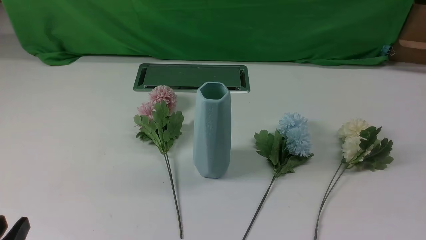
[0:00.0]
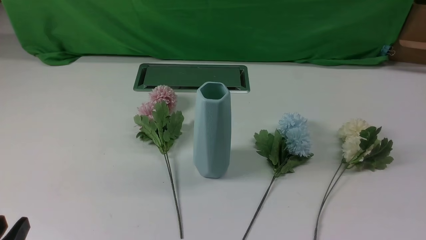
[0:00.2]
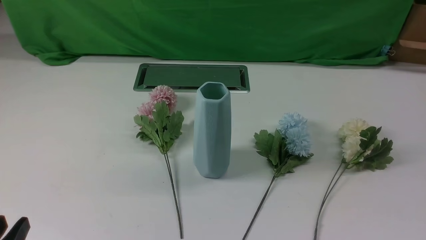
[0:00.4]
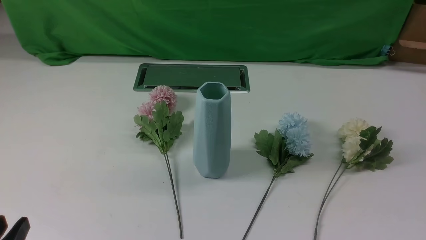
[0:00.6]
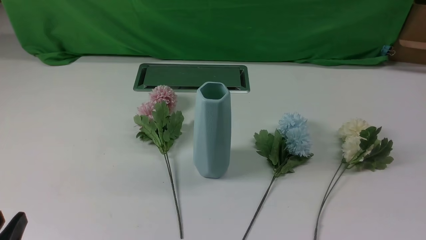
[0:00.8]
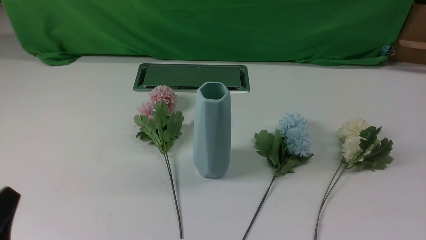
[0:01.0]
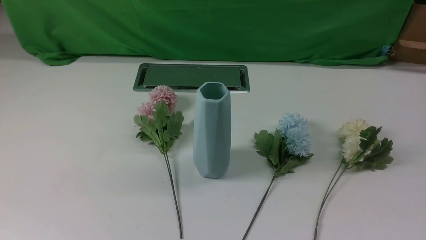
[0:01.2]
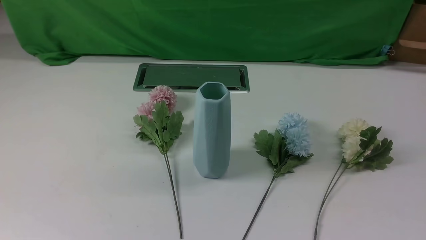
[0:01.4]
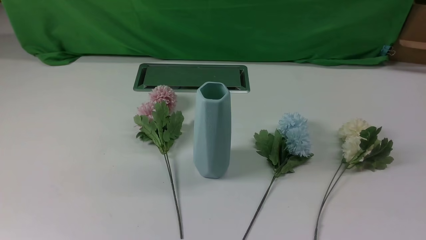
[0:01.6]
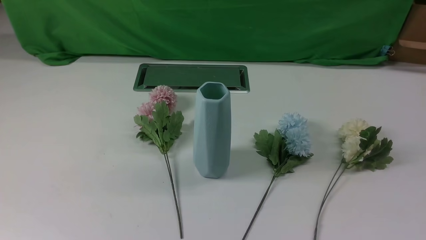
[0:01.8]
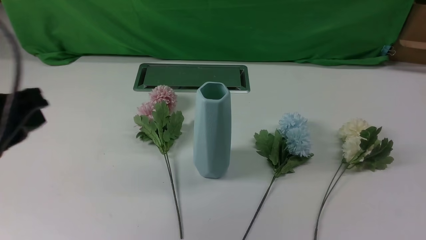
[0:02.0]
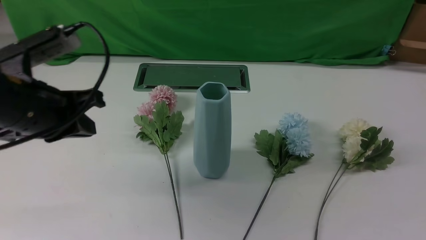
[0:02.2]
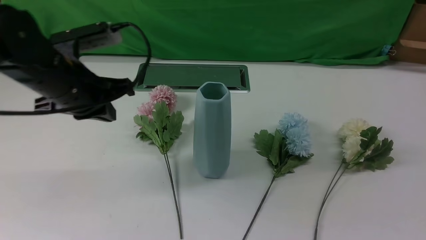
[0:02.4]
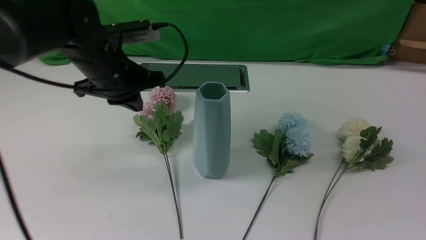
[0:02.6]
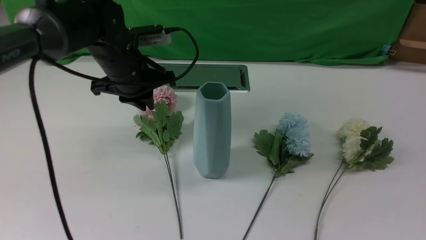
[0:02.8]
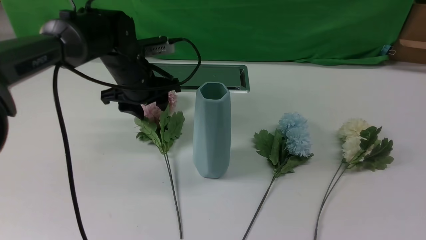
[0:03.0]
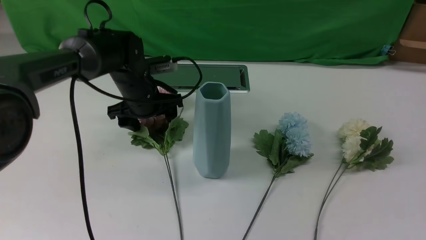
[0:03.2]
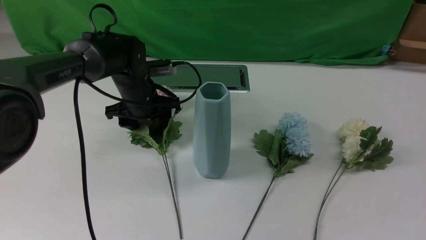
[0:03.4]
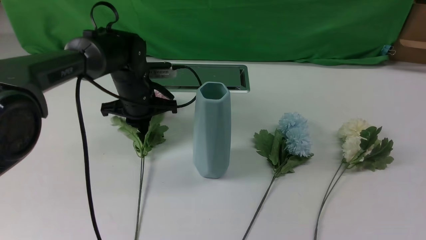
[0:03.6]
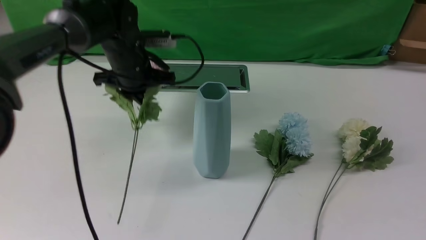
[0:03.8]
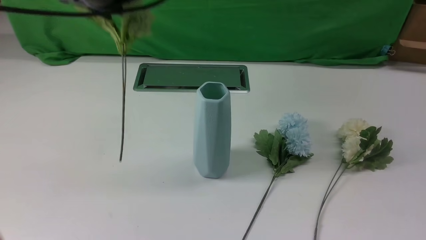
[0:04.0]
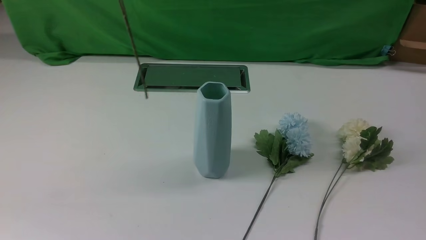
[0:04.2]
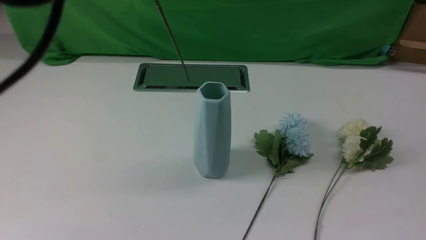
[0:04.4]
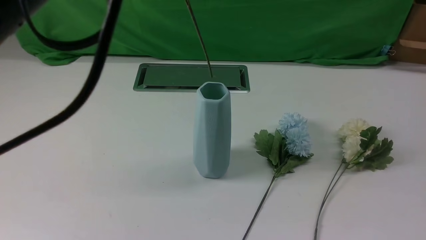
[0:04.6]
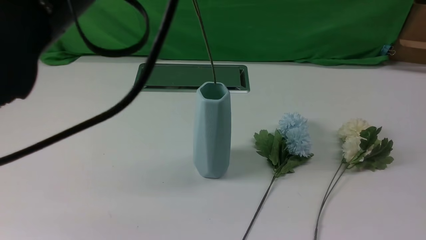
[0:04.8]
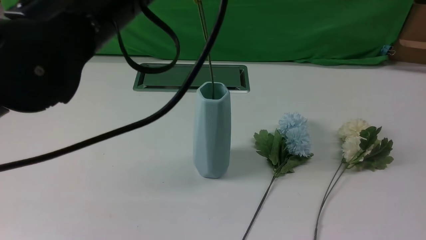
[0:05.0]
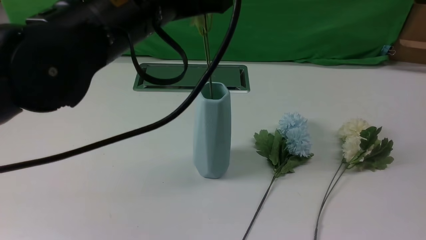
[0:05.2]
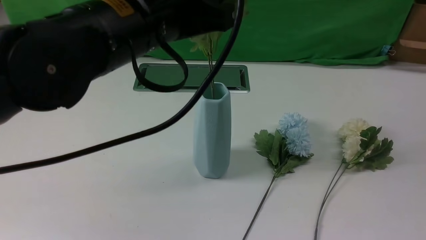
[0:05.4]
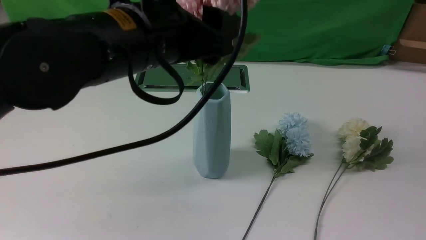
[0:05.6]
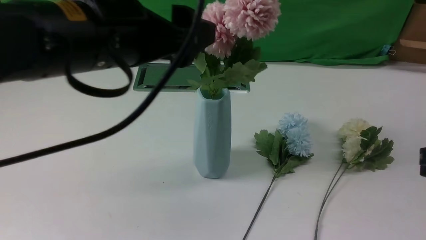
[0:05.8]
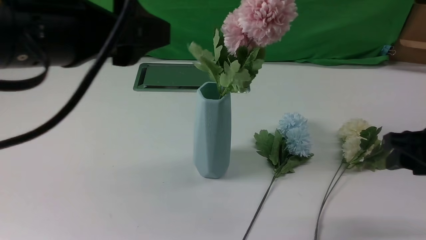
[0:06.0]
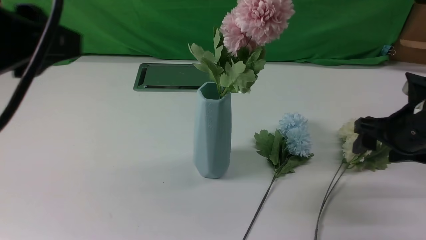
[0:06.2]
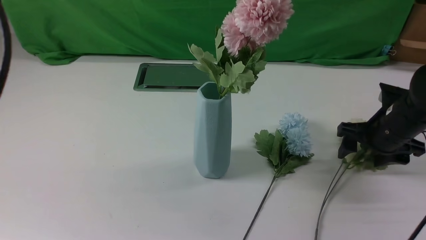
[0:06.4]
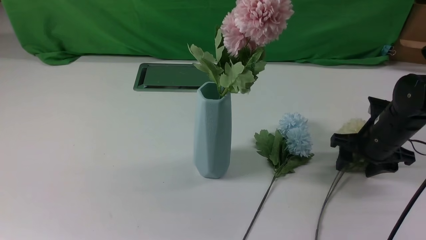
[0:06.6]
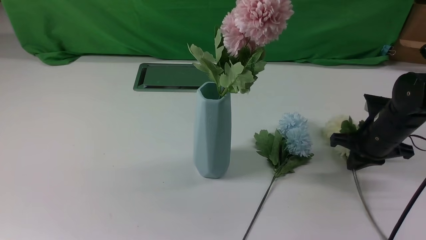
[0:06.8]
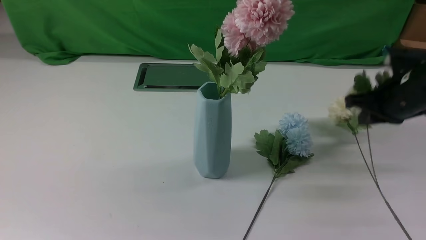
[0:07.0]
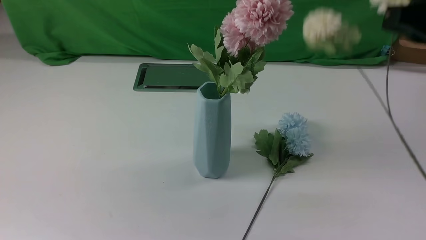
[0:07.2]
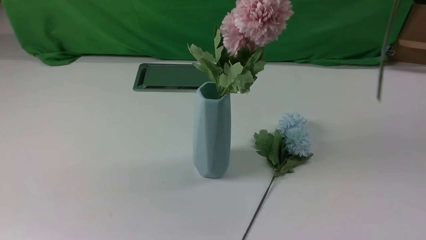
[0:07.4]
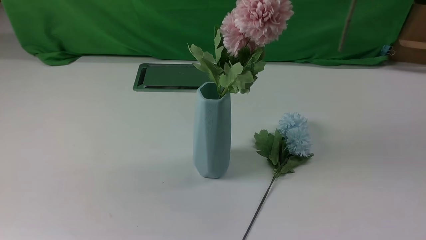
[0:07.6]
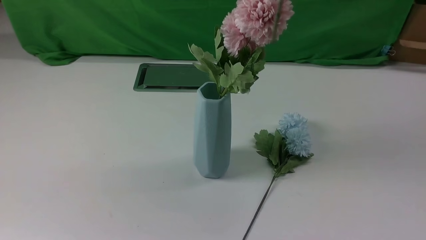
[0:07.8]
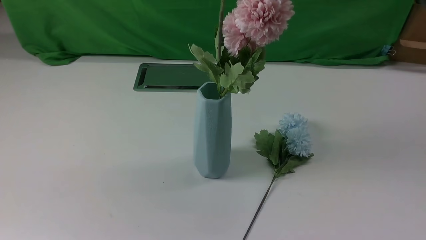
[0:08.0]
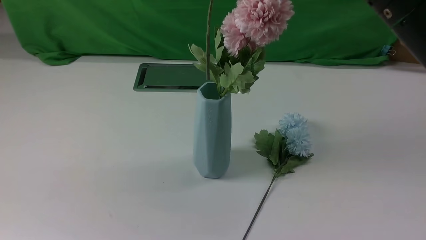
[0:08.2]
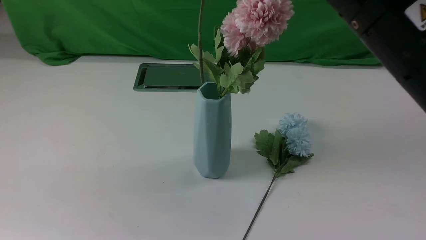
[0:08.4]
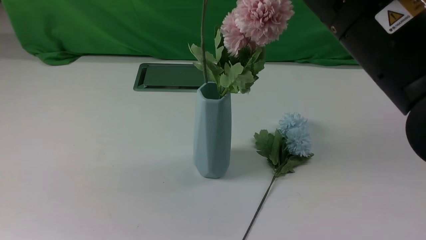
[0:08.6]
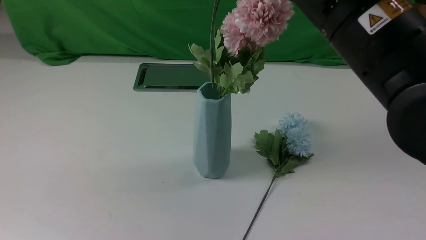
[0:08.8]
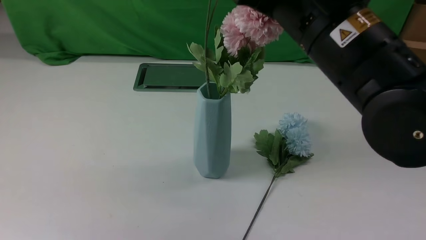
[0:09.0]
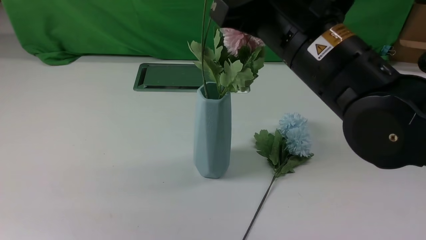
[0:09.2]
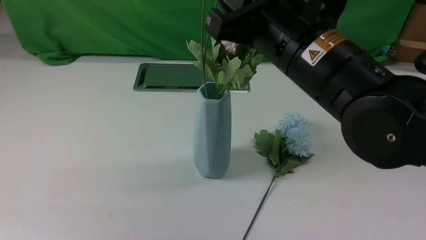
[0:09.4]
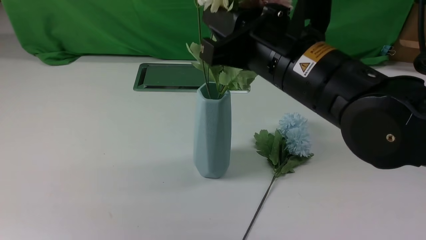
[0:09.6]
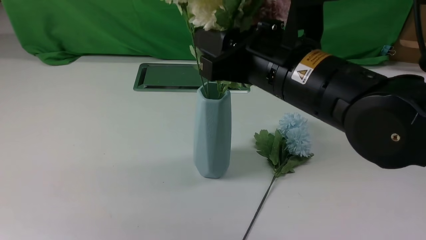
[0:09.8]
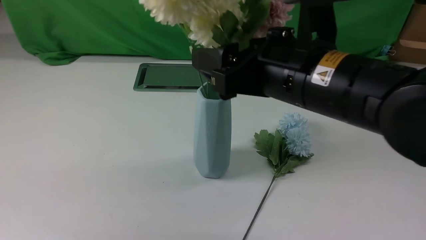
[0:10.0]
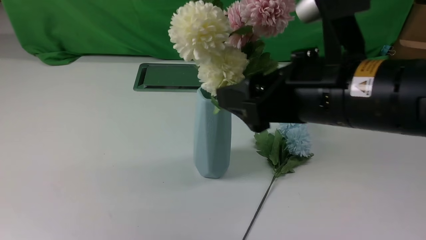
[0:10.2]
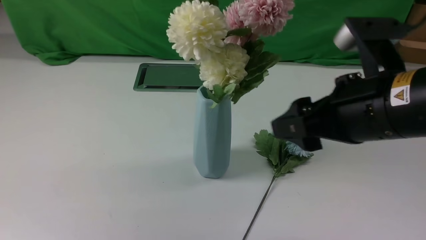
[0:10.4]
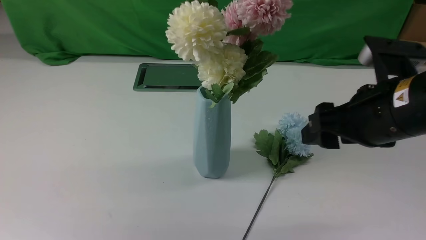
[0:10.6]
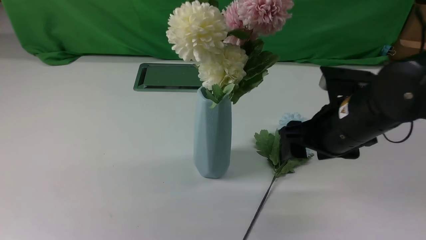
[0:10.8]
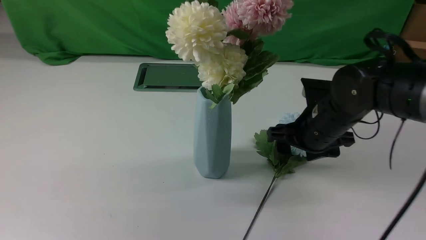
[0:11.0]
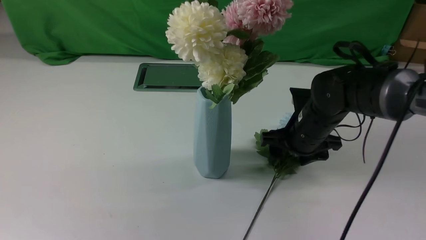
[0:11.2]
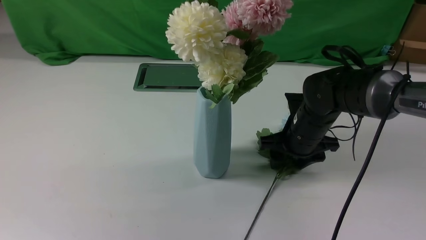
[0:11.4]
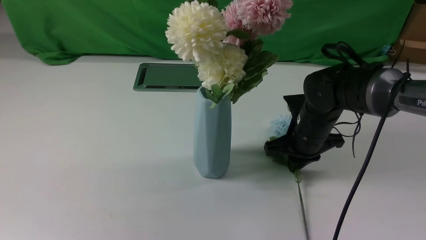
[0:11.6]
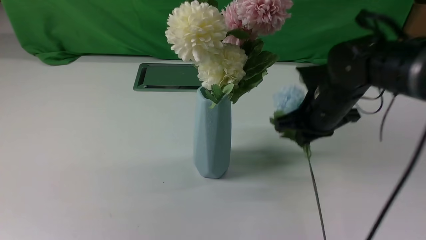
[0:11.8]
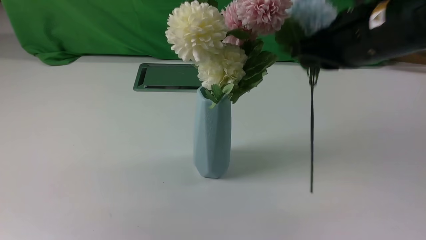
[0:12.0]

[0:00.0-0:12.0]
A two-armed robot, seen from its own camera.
Task of the whole recording: insert the flowers into the vase on the white table.
Step, 0:00.0 to 0:03.6: use the left arm to grab a bunch of fresh flowers.
Step, 0:03.8 to 0:05.6: use the left arm to insert the flowers into the vase.
Step, 0:06.0 to 0:06.8: use the right arm to grab a bunch of fresh flowers.
Step, 0:07.0 to 0:10.2: use the right arm to insert the flowers into the vase.
Step, 0:10.4 to 0:11.6: use the right arm to grab a bunch of fresh flowers.
0:01.6 to 0:03.0: The left gripper goes some 40 cm forward, and opens. Meanwhile the right gripper shifts some 15 cm upward and forward.
0:03.0 to 0:04.4: The left gripper is displaced upward and backward by some 35 cm, and closes its fingers.
0:04.4 to 0:06.0: The left gripper is displaced downward by about 5 cm, and opens, while the right gripper is displaced forward and downward by about 15 cm, and opens its fingers.
0:06.0 to 0:07.6: The left gripper is displaced backward and to the left by approximately 15 cm, and closes up, while the right gripper moves upward and backward, roughly 25 cm, and closes its fingers.
0:07.6 to 0:09.0: The right gripper shifts approximately 20 cm downward, to the left and forward.
0:09.0 to 0:10.4: The right gripper shifts some 10 cm to the right and downward, and opens its fingers.
0:10.4 to 0:12.0: The right gripper reaches roughly 20 cm downward, then returns, and closes.

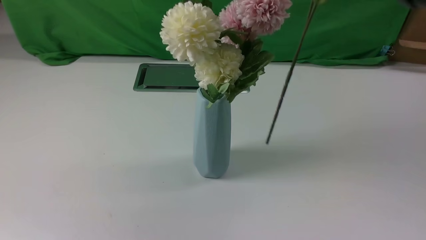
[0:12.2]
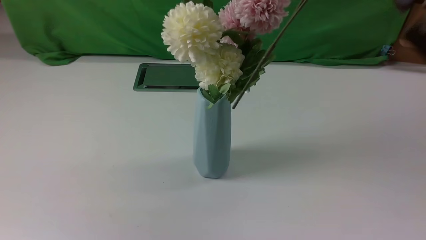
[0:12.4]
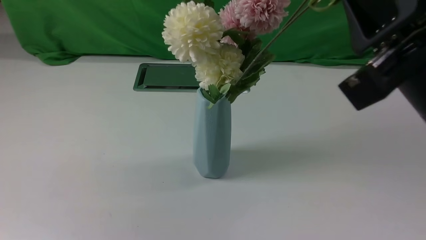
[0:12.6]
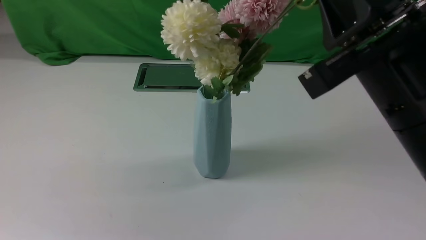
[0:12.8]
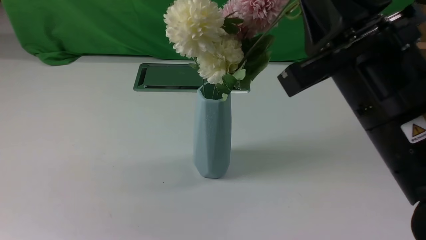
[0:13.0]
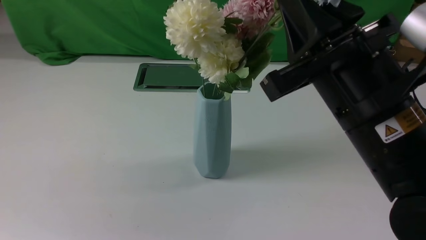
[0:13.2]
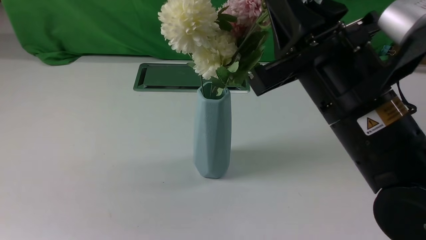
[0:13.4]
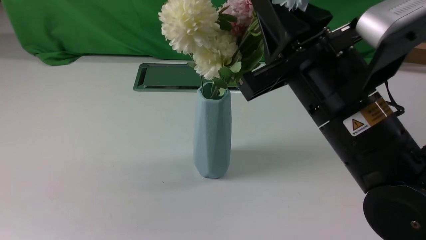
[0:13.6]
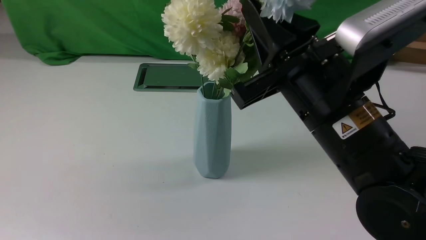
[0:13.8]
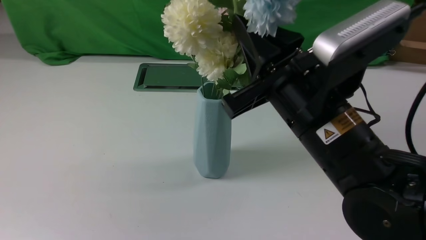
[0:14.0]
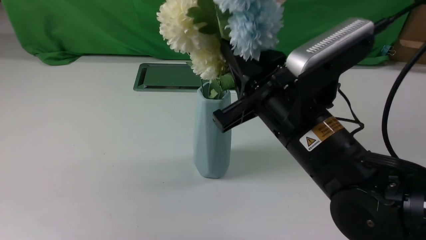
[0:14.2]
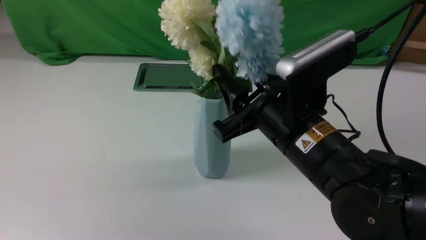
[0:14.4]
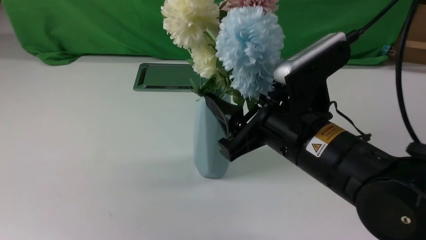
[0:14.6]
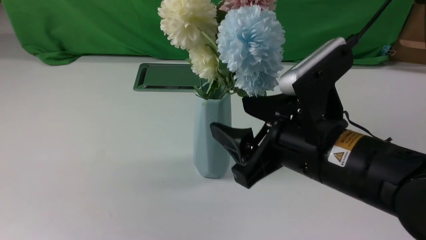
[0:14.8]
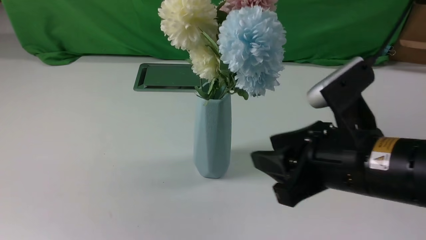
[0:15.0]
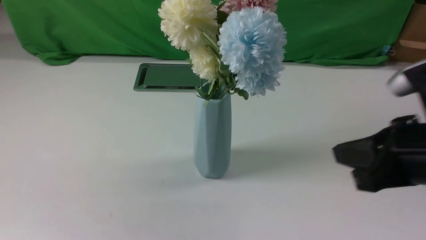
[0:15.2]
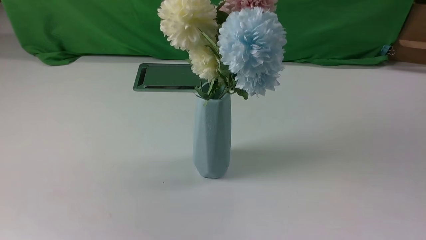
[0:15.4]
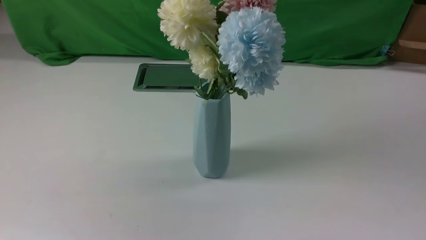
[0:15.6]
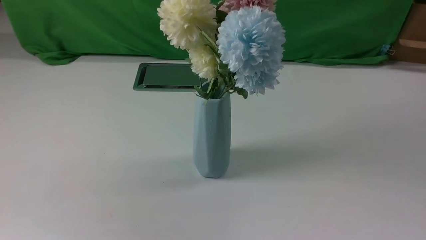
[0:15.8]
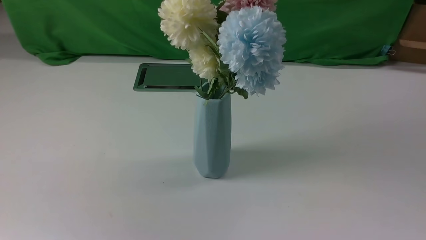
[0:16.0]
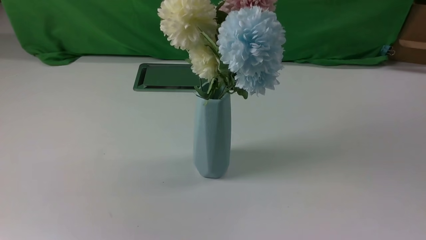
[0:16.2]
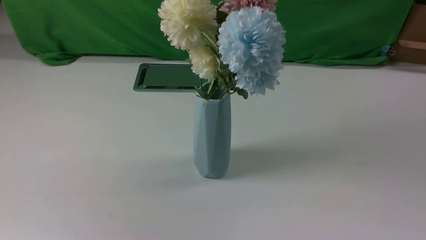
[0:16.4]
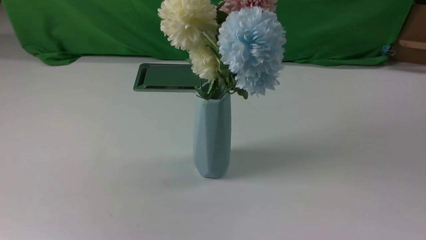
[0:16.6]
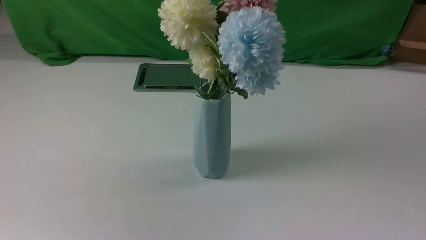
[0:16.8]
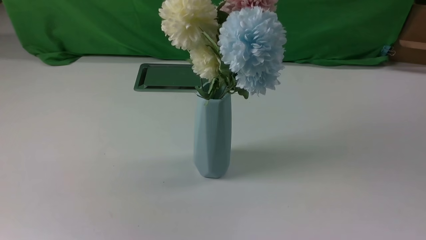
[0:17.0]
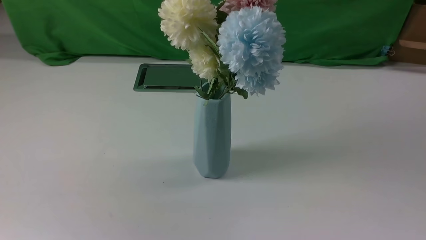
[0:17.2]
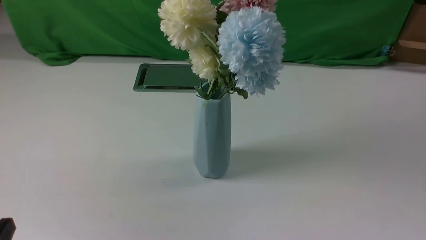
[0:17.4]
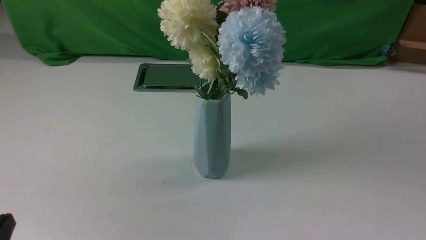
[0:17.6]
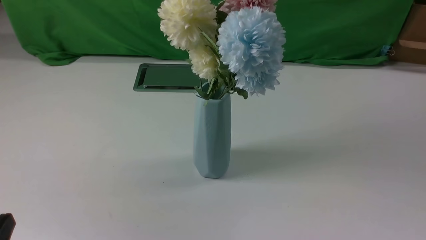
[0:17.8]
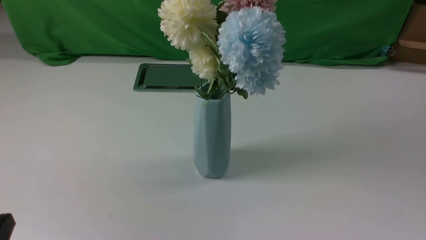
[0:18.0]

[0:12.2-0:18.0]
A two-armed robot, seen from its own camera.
Task of the whole recording: insert the flowers into the vase on the white table.
Step, 0:12.2 to 0:14.6: use the right arm to insert the flowers into the vase.
0:12.2 to 0:13.6: The right gripper is displaced downward by approximately 10 cm.
0:13.6 to 0:15.0: The right gripper ends up some 5 cm from where it was, and opens.
0:15.0 to 0:16.6: The left gripper shifts some 10 cm downward and backward. The right gripper goes approximately 25 cm backward and to the right, and closes up.
